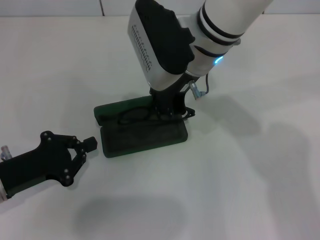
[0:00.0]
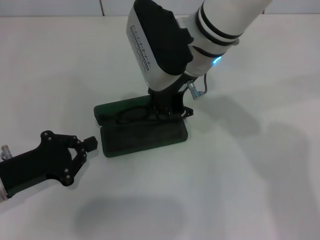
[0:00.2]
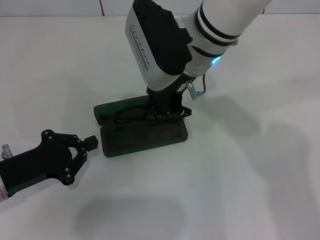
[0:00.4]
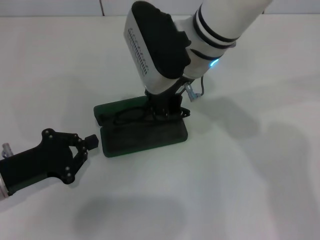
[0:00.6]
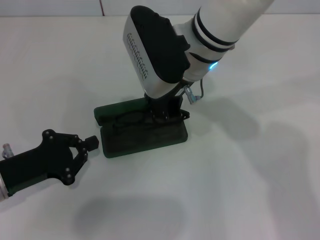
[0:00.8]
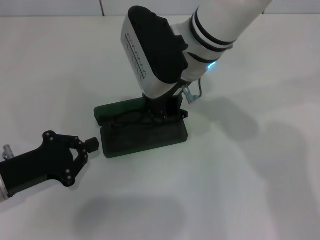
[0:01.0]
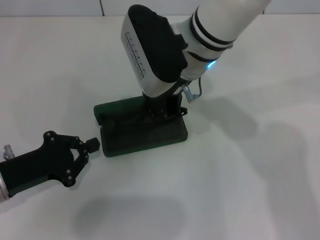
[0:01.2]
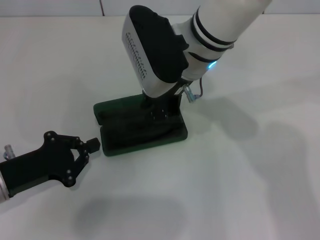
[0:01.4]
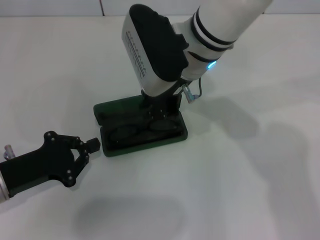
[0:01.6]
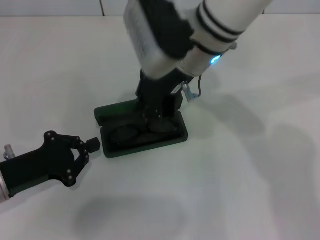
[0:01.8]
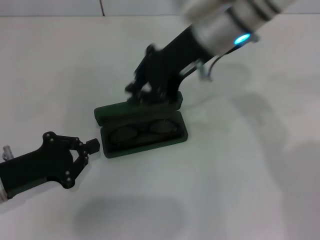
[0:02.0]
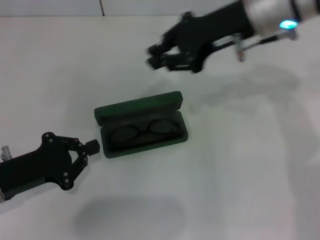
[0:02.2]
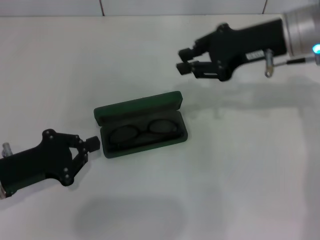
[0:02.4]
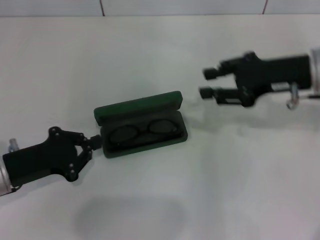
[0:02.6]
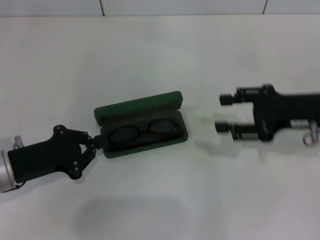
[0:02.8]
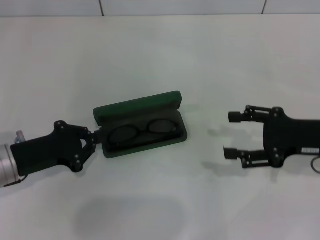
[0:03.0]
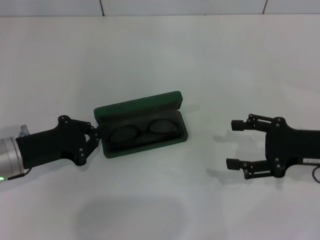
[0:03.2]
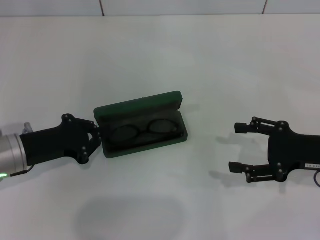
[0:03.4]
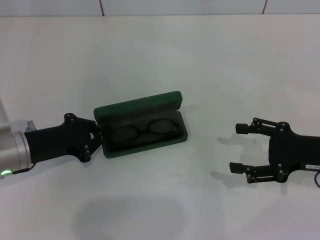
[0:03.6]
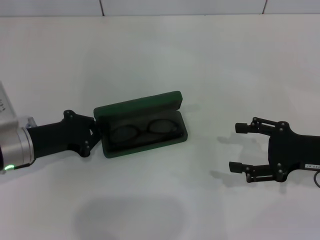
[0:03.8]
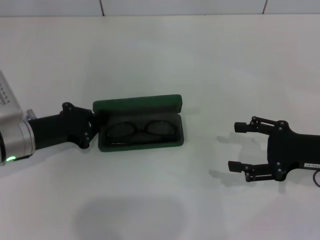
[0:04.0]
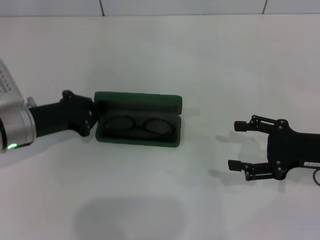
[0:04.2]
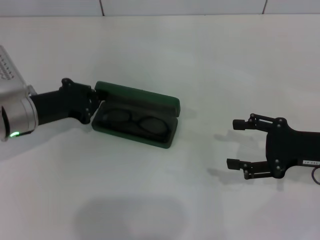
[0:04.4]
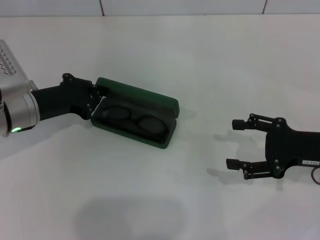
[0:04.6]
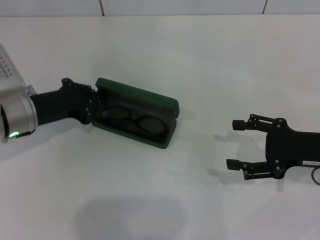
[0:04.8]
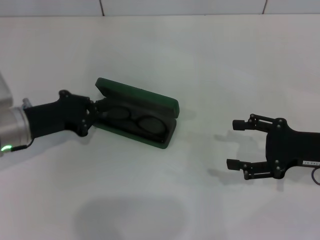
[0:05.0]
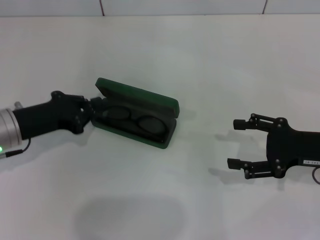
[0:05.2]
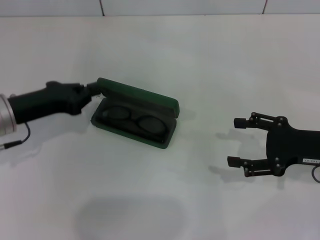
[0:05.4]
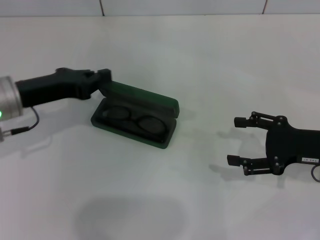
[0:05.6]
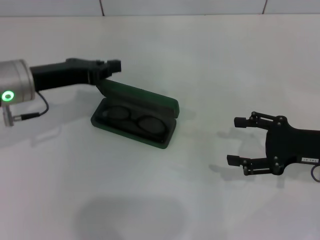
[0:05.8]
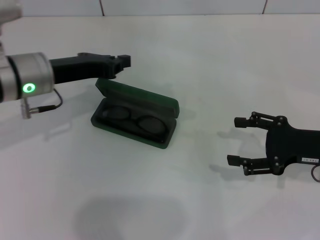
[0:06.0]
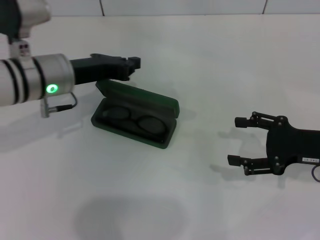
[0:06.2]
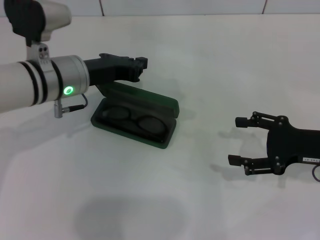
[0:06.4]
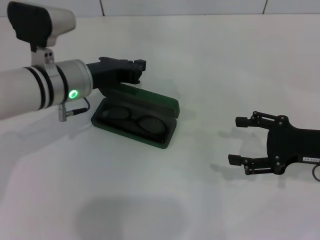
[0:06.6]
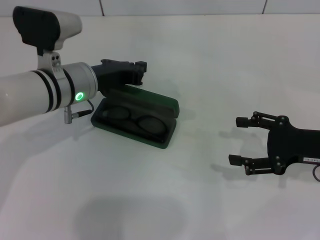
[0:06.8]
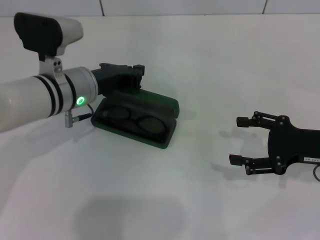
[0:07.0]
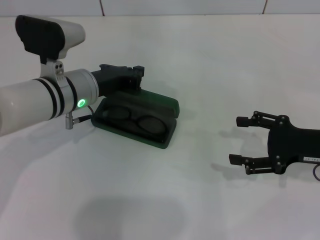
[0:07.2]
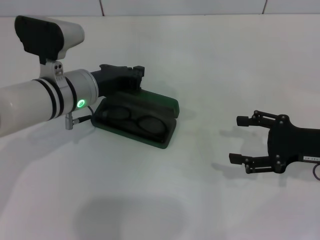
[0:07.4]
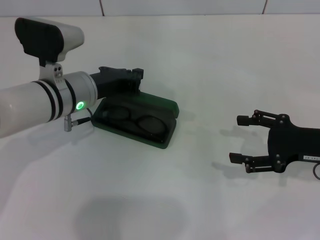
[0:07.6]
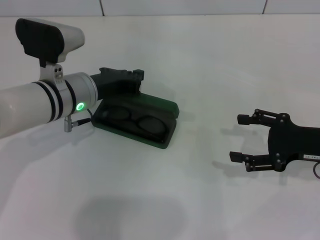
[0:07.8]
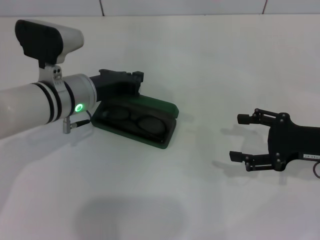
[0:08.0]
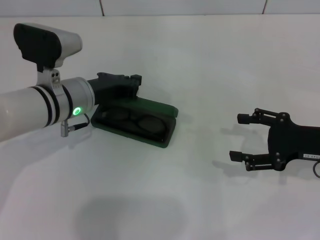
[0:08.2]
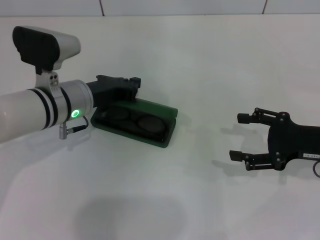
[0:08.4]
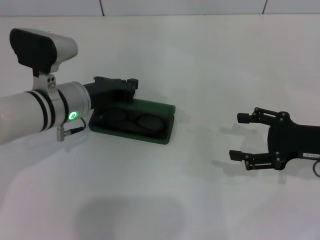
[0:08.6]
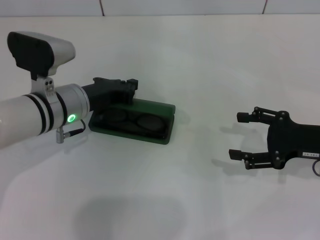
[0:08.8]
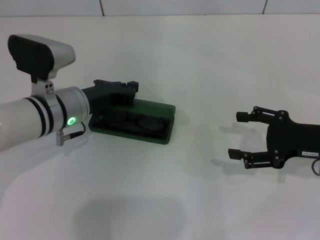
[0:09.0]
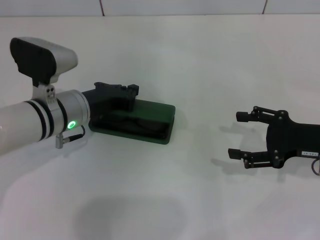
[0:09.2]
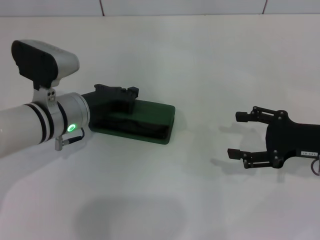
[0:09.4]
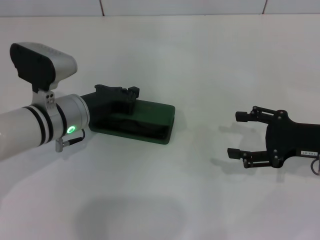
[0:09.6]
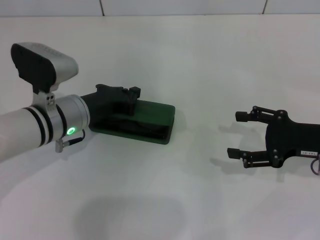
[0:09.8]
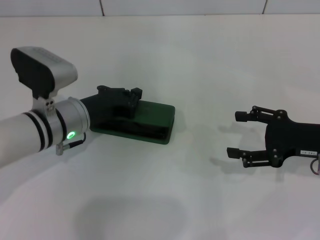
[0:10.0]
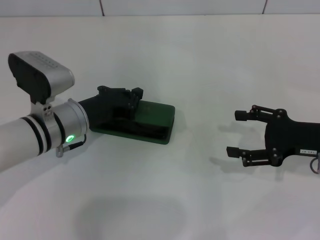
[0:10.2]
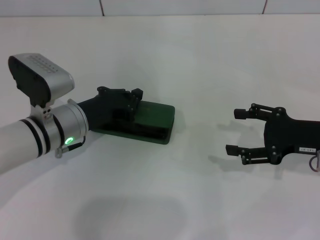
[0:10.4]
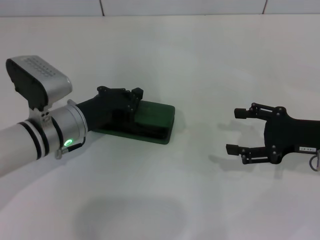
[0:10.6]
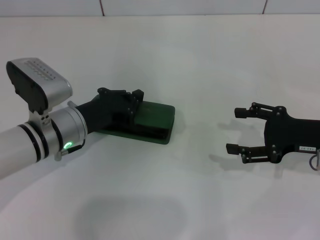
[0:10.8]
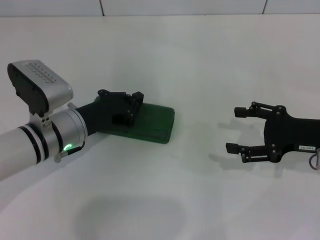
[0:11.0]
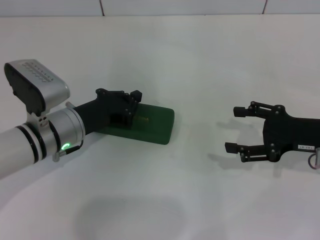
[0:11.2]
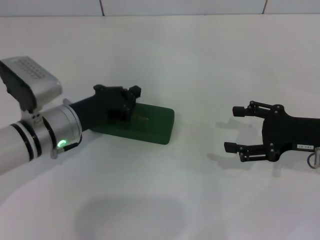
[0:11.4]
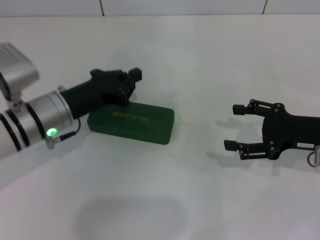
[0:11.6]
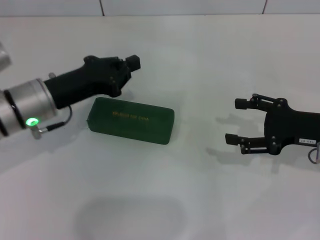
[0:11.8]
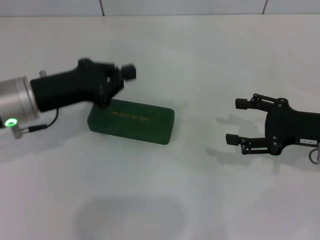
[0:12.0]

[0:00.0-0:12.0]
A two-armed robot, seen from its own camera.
Step, 0:02.0 to 0:10.8: Close the glasses case with your left hand.
0:00.0 to 0:01.6: Both grippers stay about where they are.
0:01.6 to 0:03.0: The right gripper is displaced to the right by about 25 cm, and opens up.
0:03.0 to 0:04.4: The left gripper shifts roughly 10 cm forward.
0:04.4 to 0:06.0: The left gripper moves upward, approximately 5 cm.
0:06.0 to 0:07.6: The left gripper shifts some 5 cm to the right.
0:07.6 to 0:10.4: The grippers stay close to where they were, moving slightly.
0:10.4 to 0:12.0: The left gripper shifts some 10 cm upward and to the left.

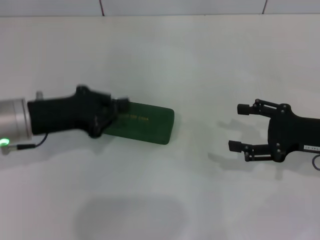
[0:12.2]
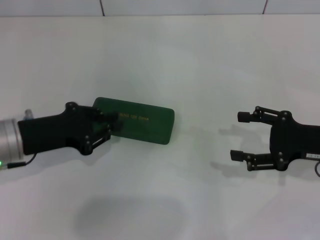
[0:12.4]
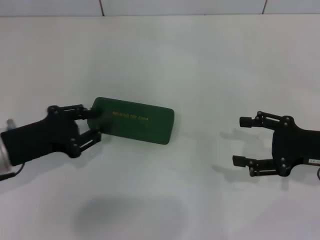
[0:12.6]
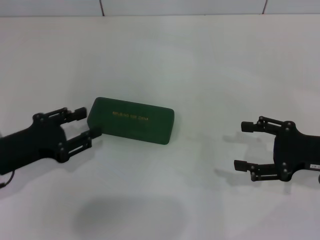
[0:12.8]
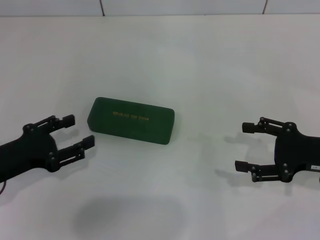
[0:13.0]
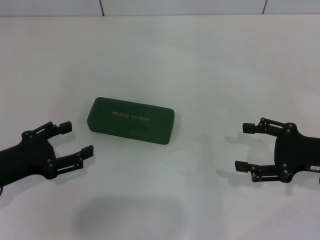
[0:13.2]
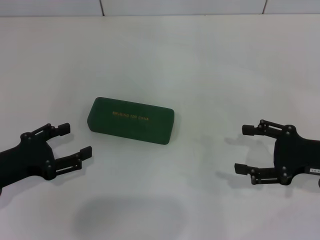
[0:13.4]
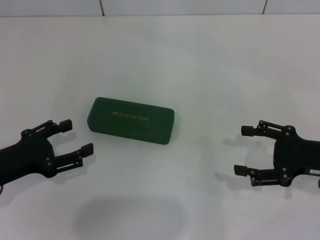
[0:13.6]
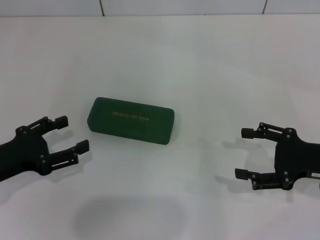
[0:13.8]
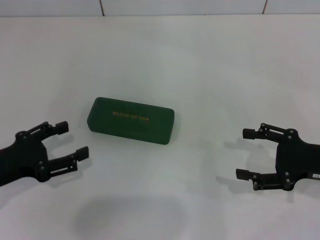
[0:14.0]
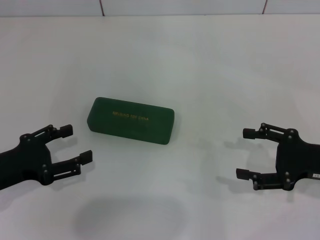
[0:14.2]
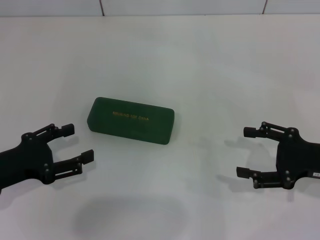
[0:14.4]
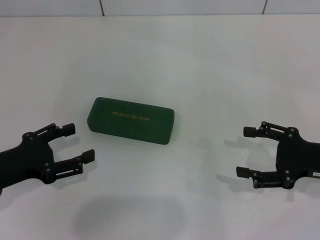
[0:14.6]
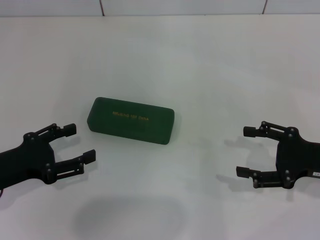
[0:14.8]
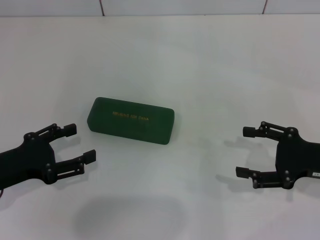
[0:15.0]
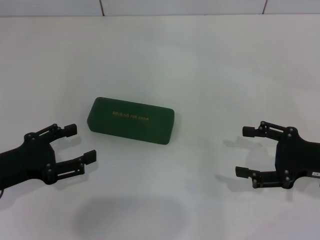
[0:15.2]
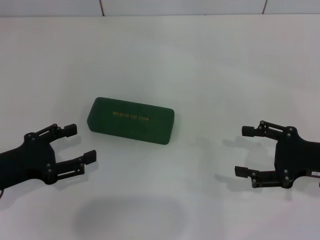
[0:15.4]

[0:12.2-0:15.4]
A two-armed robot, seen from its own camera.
0:12.2 to 0:13.8: The left gripper heads backward and to the left, covering approximately 10 cm, and opens up.
0:13.8 to 0:15.4: Both grippers stay about where they are.

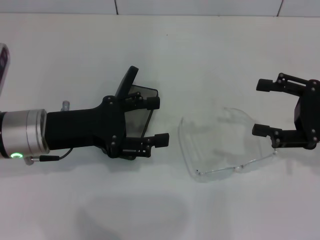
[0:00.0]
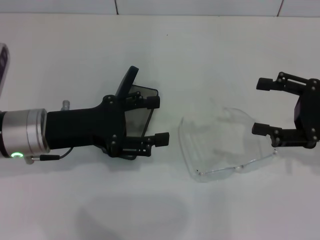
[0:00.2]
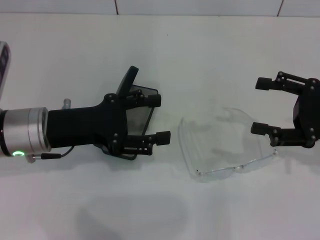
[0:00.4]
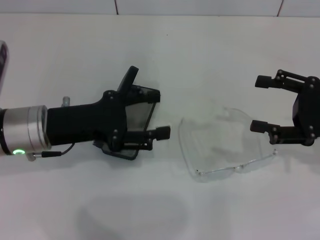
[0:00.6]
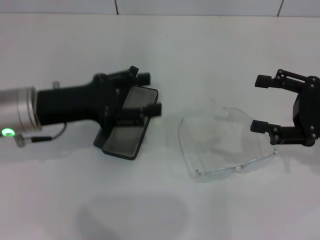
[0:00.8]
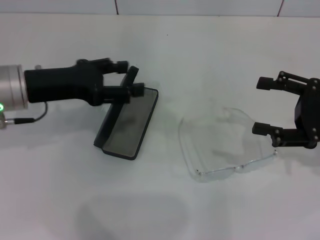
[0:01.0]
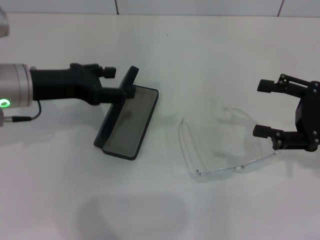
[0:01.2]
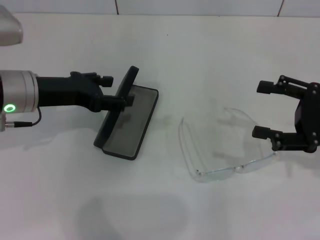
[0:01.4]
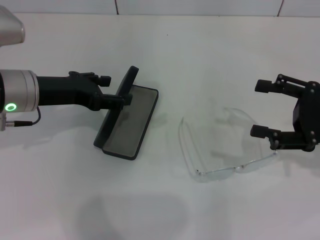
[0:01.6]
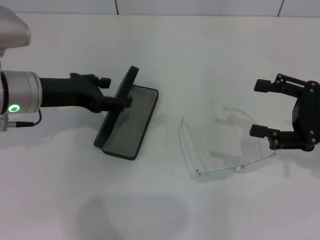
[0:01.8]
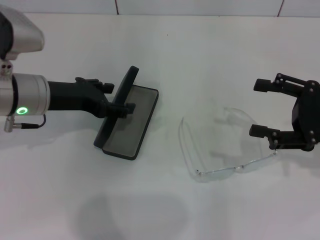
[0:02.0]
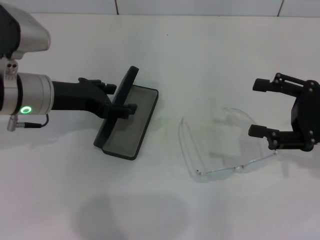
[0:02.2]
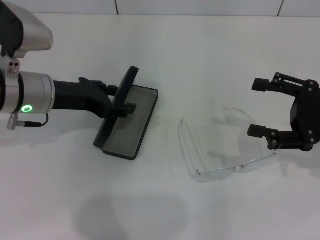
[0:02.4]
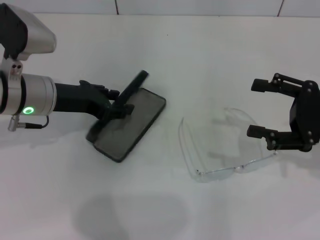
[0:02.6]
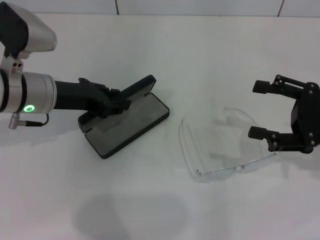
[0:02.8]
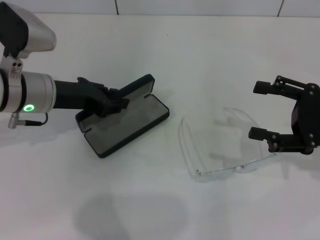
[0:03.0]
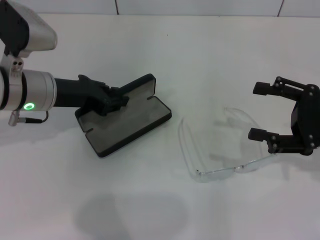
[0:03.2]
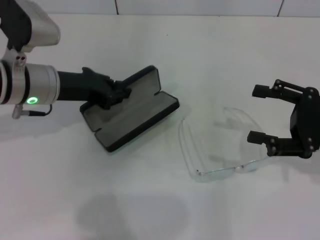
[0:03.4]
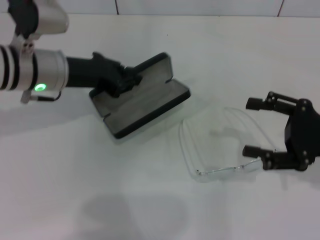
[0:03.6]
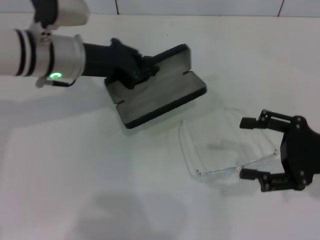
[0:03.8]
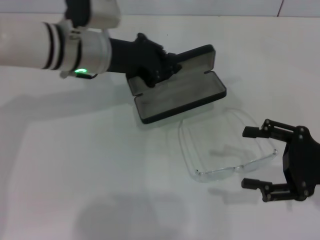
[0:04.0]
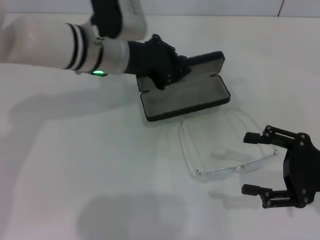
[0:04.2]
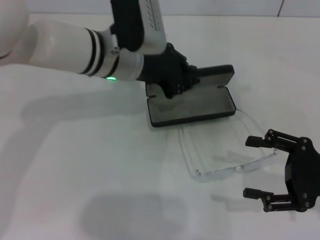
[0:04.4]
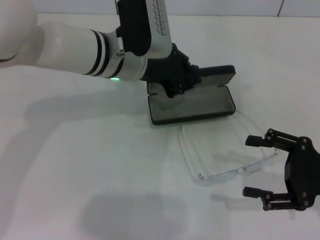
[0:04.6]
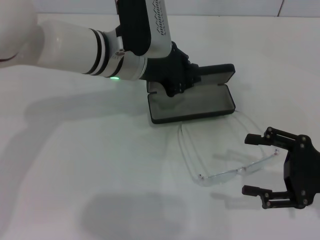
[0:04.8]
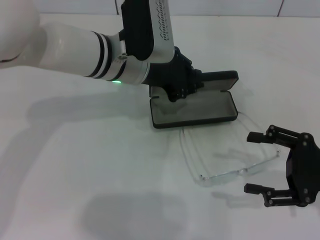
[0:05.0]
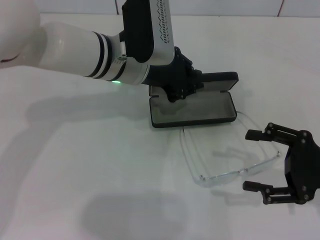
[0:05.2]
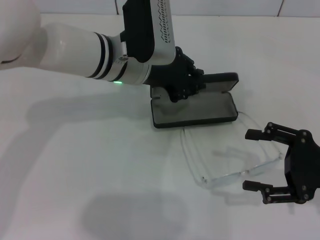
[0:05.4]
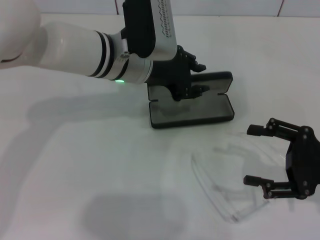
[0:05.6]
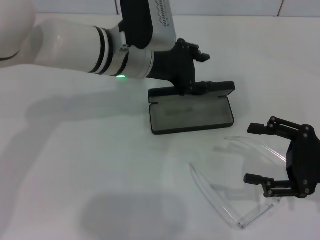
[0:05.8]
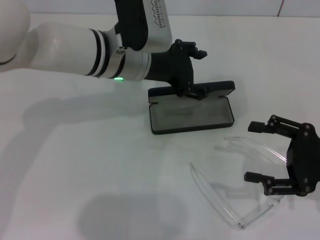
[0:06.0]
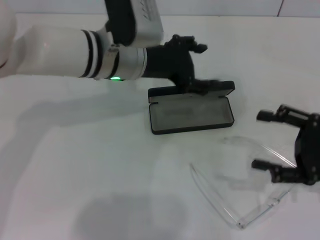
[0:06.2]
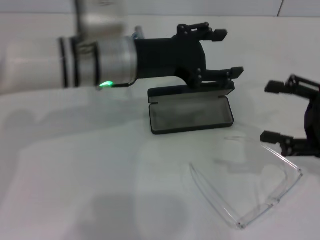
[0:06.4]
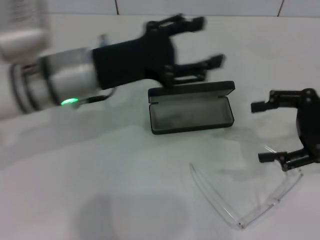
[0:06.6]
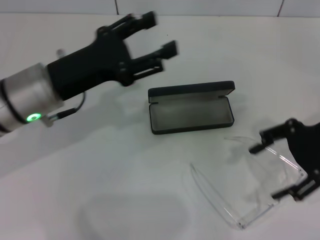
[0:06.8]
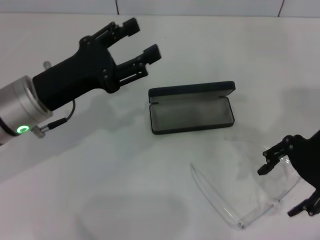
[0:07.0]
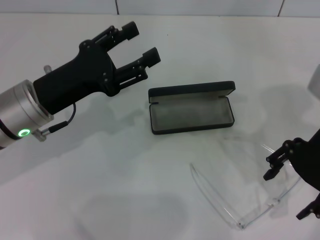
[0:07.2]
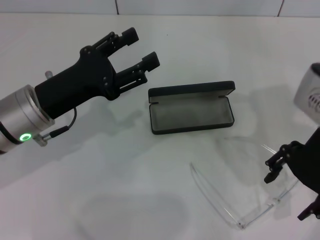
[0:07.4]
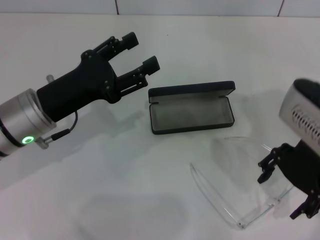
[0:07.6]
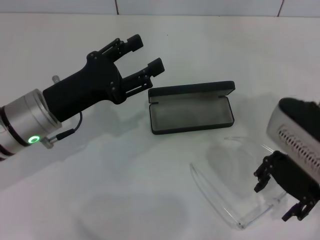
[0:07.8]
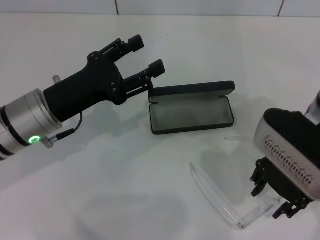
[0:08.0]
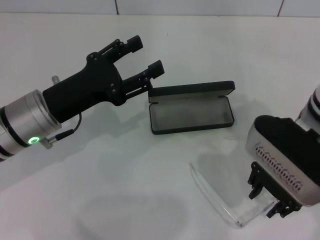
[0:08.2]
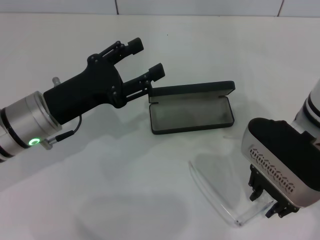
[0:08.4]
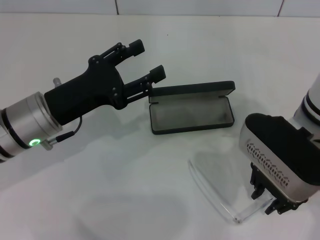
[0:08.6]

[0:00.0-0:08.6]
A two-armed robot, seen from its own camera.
Step, 0:00.0 to 0:02.8: Grab the glasses case with your left hand.
Step, 0:03.0 to 0:05.6: Place the glasses case in the center of the table with your left hand.
0:00.0 to 0:01.4: The left gripper ends up approximately 5 cm from where it was.
0:01.4 to 0:02.8: The left gripper closes.
0:02.8 to 0:04.4: The right gripper shifts roughly 5 cm backward. Meanwhile the left gripper heads to the right, covering some 10 cm, and closes its fingers.
0:04.4 to 0:05.8: The grippers move only a little.
0:05.8 to 0:07.2: The left gripper shifts roughly 15 cm to the left and backward, and opens its fingers. Meanwhile the right gripper shifts some 15 cm upward, to the left and forward.
0:07.2 to 0:08.6: The right gripper travels to the left and downward by approximately 10 cm, and closes up.
